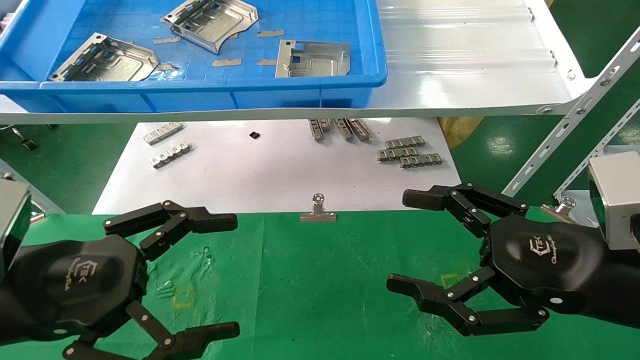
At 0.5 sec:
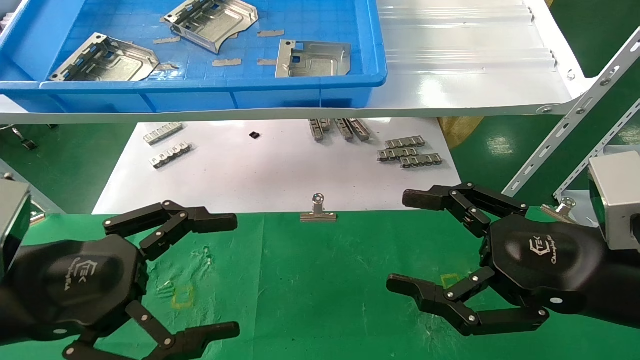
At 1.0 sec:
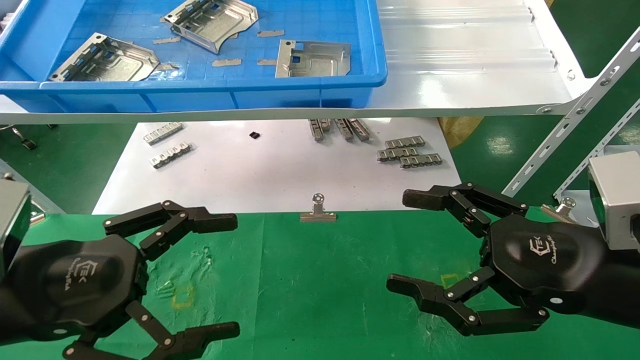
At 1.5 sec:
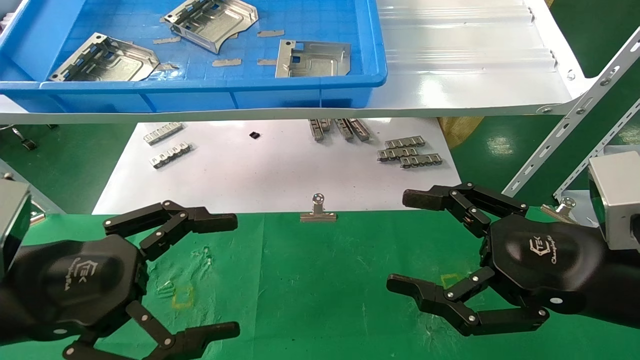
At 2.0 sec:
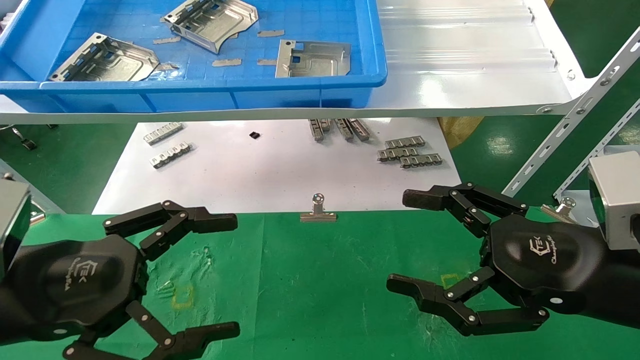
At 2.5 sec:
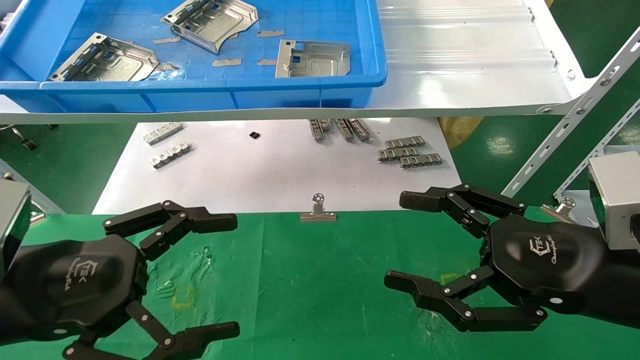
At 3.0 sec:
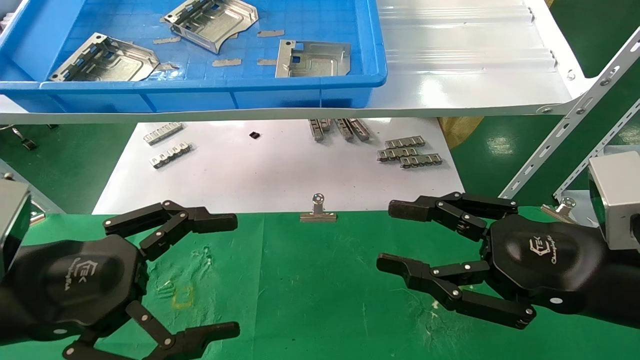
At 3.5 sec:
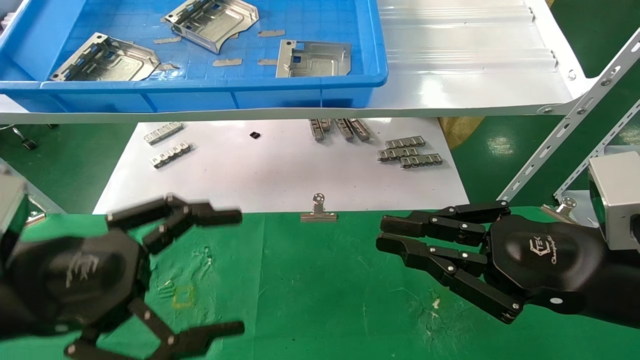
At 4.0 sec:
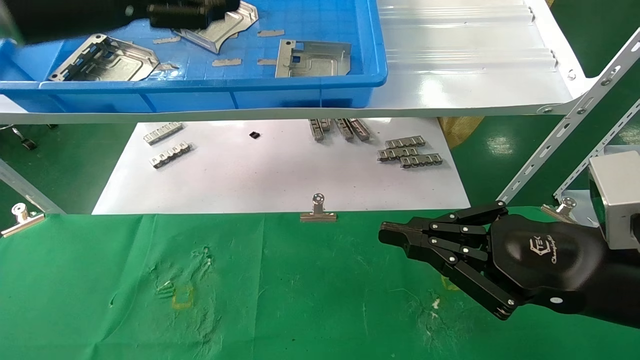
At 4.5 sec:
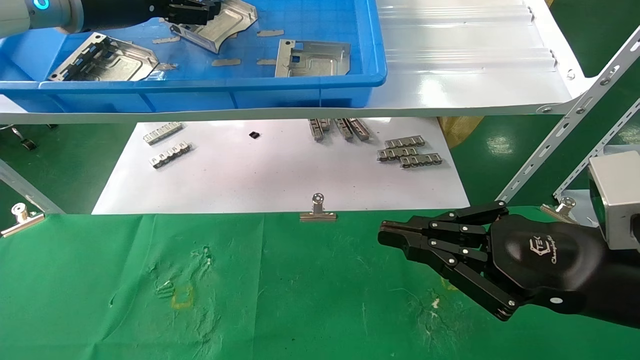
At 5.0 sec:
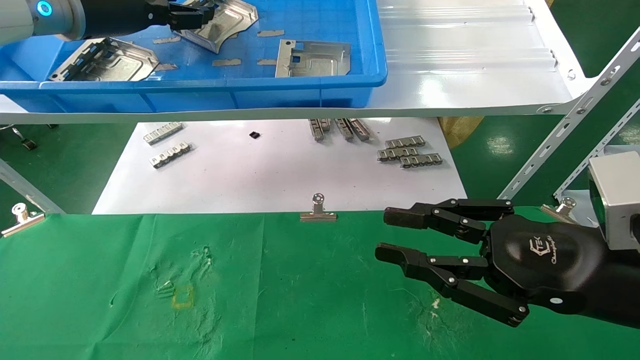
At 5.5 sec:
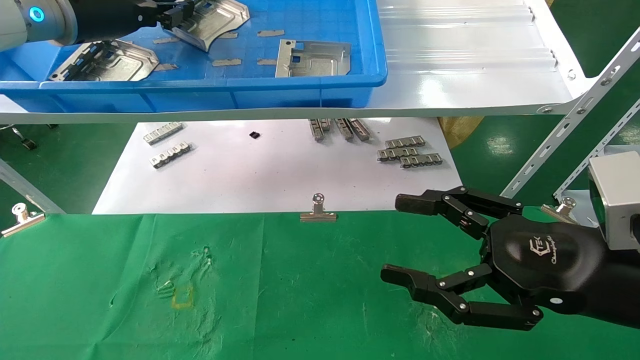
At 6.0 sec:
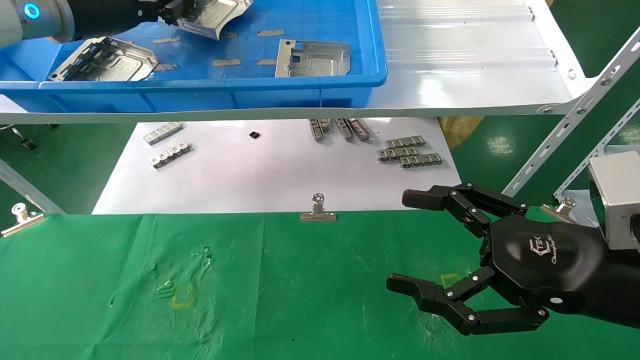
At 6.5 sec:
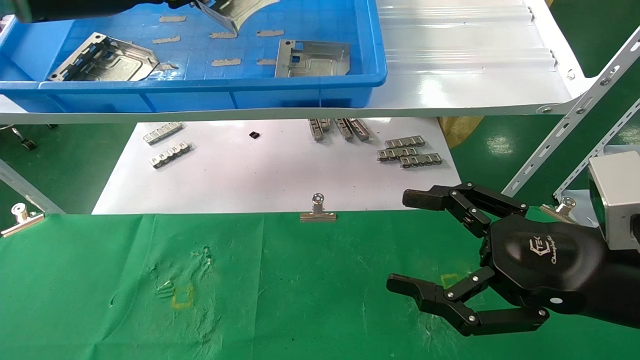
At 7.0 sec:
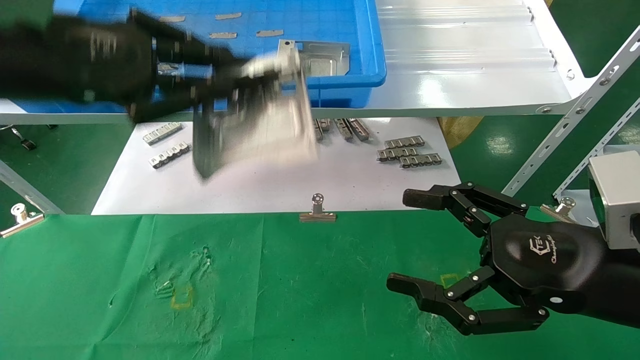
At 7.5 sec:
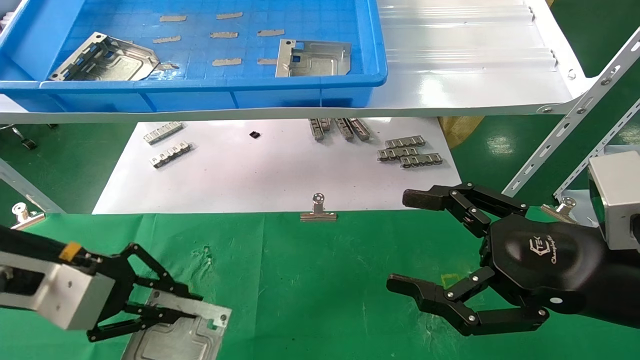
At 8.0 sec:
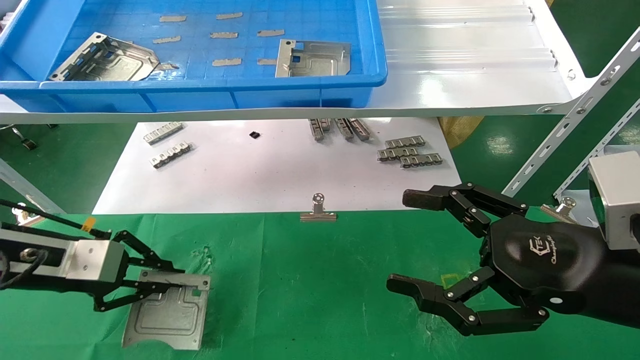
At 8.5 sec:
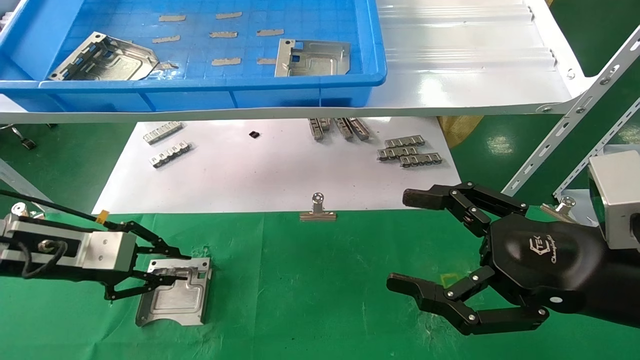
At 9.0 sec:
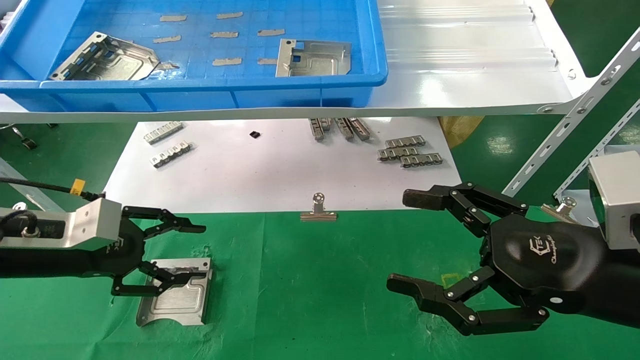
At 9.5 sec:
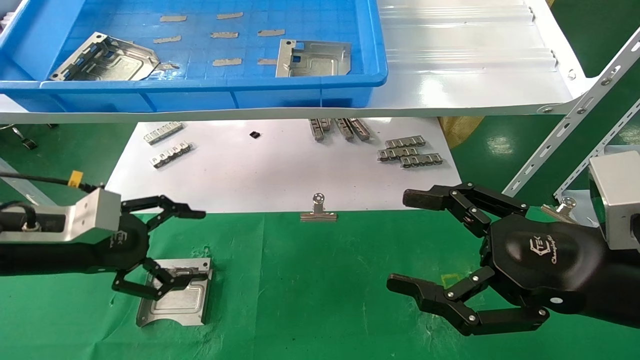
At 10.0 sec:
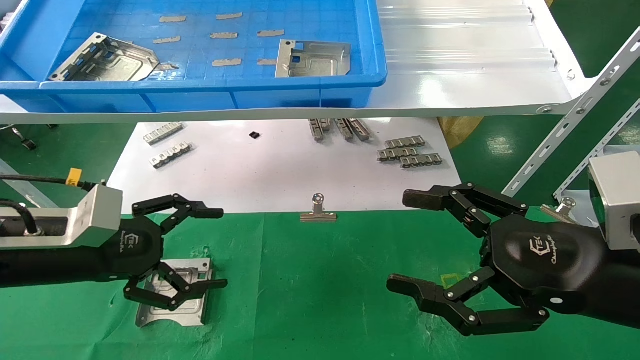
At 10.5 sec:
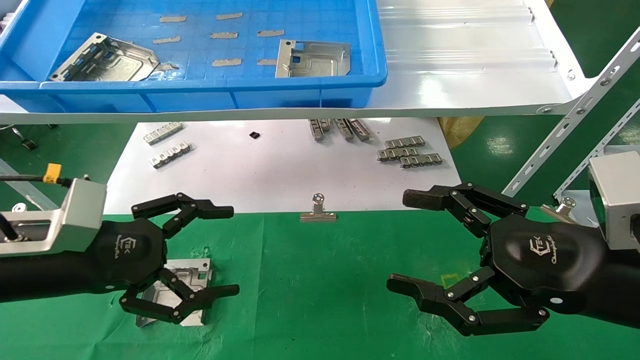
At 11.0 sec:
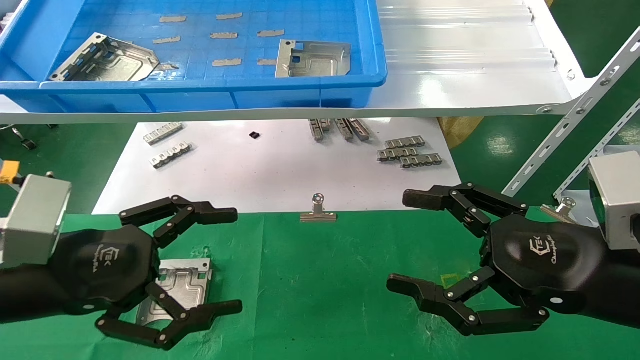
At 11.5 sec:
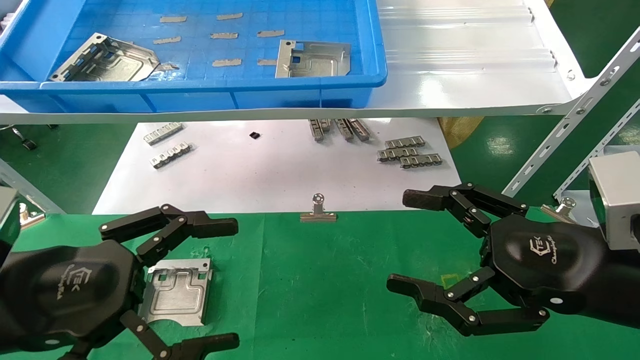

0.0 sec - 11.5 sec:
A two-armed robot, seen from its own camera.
Task of the whole recording: use the mechanical arm to pick up the parts and place them on the table.
Step, 4.0 sec - 5.5 sec: Pick up the hard drive bracket from the feeding area.
Step, 6.0 sec - 8.5 sec: Place the hard drive bracket into the box.
0.0 sec - 2.0 sec: The two grippers keep their place.
2.0 sec - 4.0 sec: The right gripper closes up; the left gripper moves upward and forward, approximately 25 cm.
4.0 sec - 6.0 sec: The left gripper shifts approximately 5 cm forward, and closes up. Meanwhile the right gripper opens.
6.0 sec - 7.5 sec: The left gripper travels downward and backward by some 25 cm.
7.5 sec - 9.5 sec: The left gripper opens its fingers.
9.5 sec - 11.5 sec: The left gripper travels backward and to the right by approximately 15 cm.
